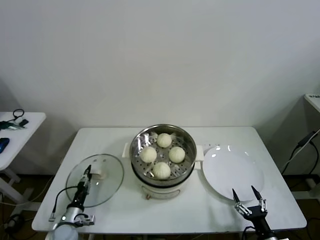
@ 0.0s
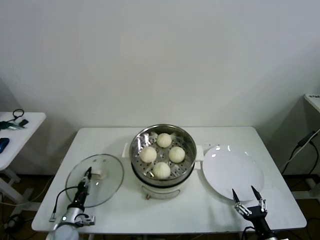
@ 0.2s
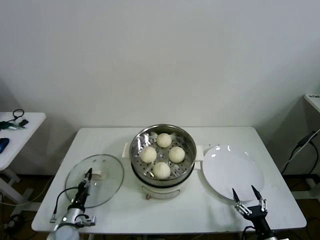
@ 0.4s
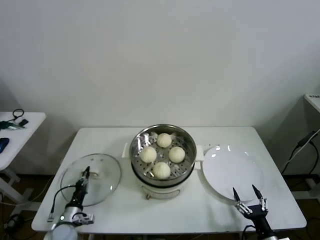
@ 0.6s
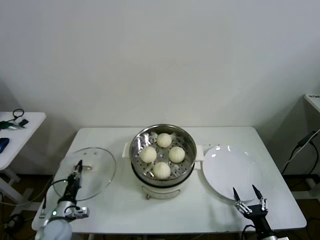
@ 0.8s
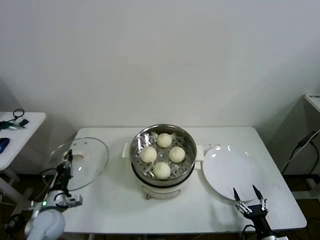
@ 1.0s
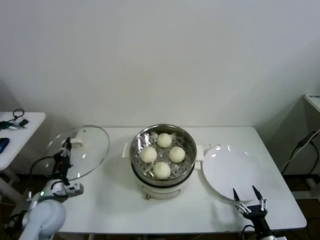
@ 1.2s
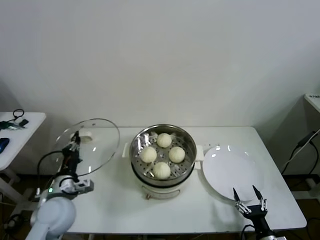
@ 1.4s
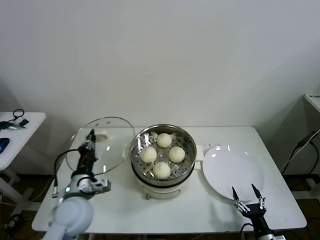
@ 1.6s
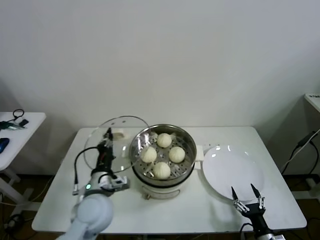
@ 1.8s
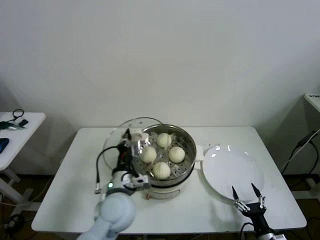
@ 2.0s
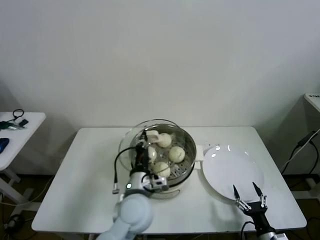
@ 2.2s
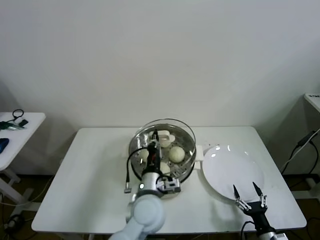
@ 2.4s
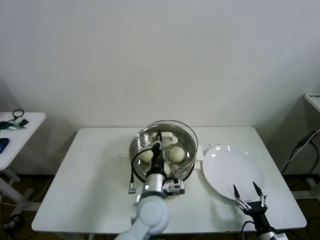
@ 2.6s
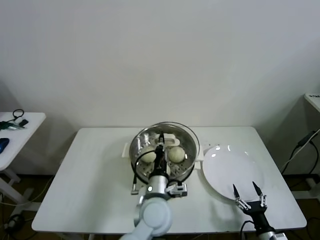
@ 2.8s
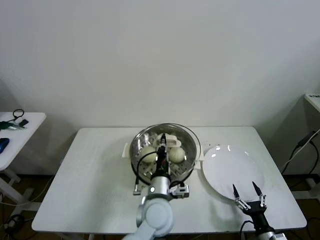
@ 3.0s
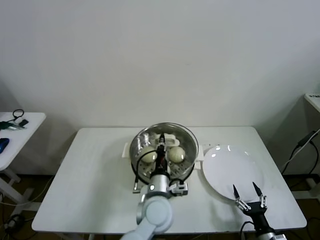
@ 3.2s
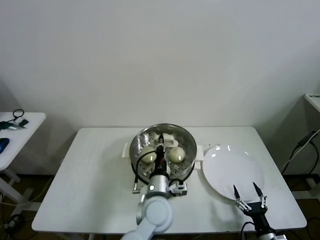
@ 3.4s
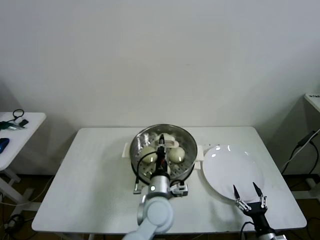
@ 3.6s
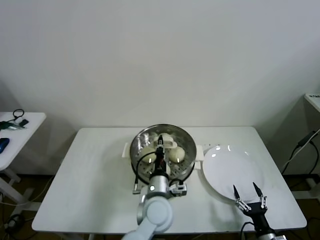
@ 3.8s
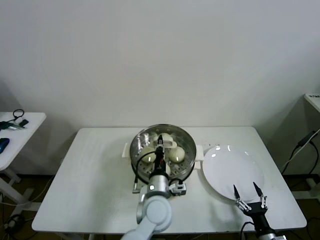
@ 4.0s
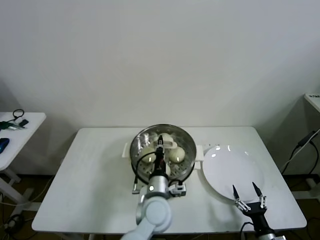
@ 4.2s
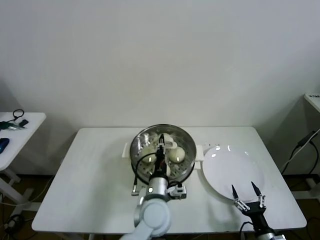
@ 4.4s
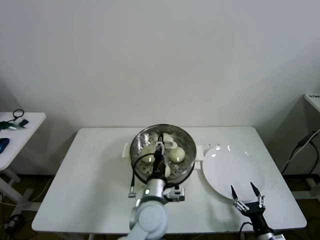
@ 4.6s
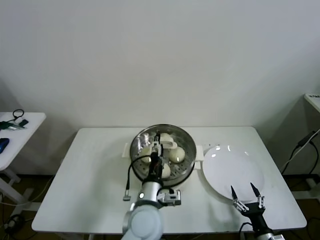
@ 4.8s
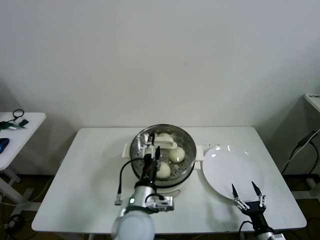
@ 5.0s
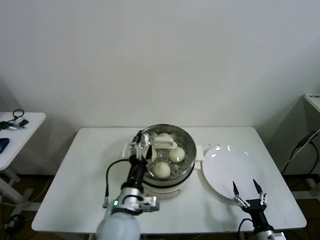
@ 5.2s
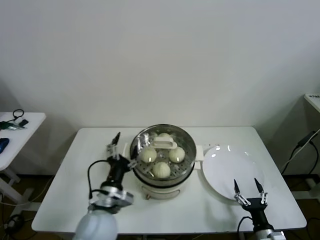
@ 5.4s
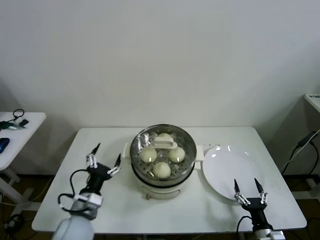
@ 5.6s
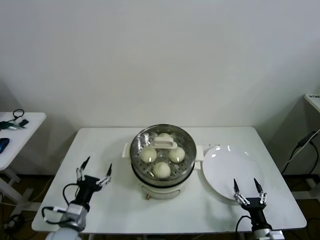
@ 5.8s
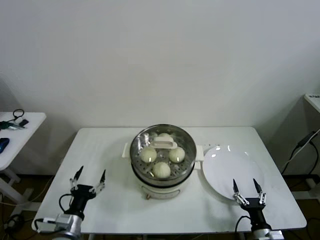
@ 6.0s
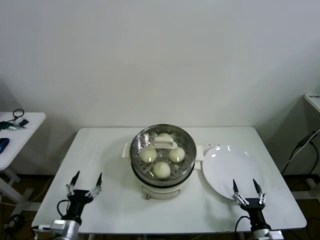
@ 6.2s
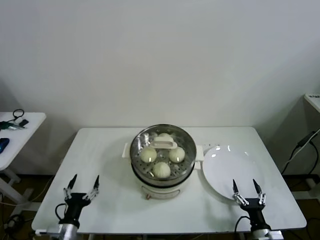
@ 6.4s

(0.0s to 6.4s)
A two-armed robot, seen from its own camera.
Task of the whole recording: take steamed baozi put them in steamer then cover it.
Step, 0.8s - 4.6s: Place the pot lid on the steamer with left gripper.
0.0s - 1.6s: The left gripper travels upward and to the right by approximately 25 cm, and closes its fingers.
1.6s - 3.2s: The left gripper heads to the right, covering approximately 25 cm.
3.2s - 4.8s: The left gripper opens up.
4.8s - 6.4s: The left gripper shifts some 30 cm to the left and downward.
